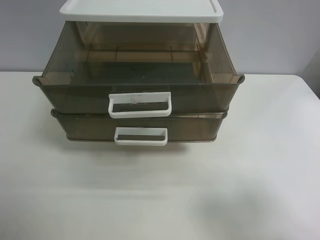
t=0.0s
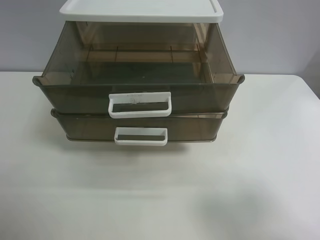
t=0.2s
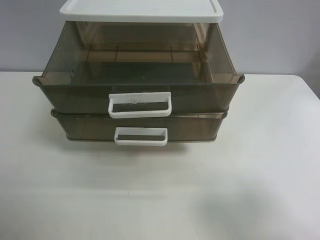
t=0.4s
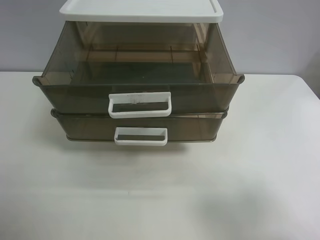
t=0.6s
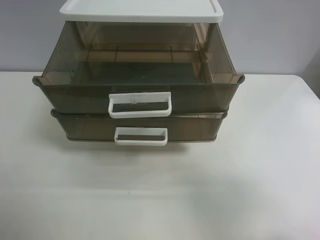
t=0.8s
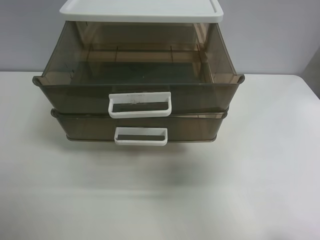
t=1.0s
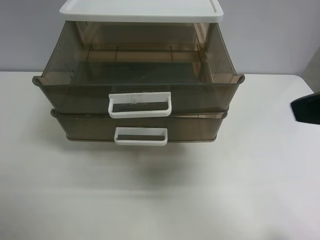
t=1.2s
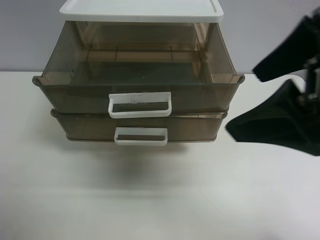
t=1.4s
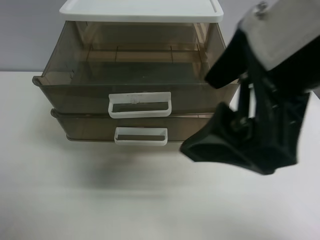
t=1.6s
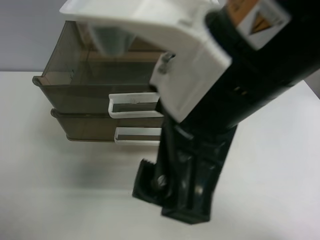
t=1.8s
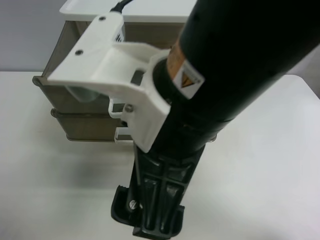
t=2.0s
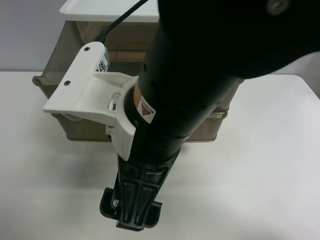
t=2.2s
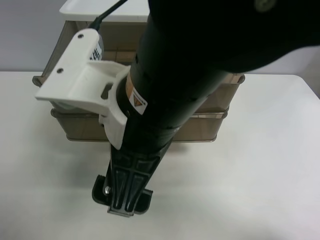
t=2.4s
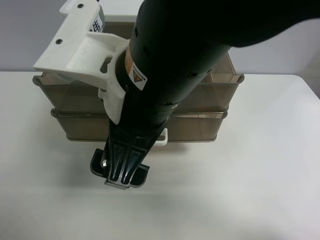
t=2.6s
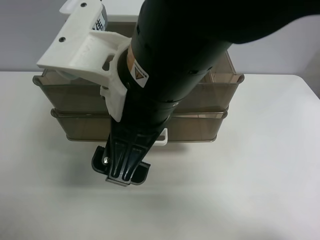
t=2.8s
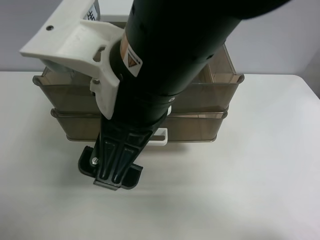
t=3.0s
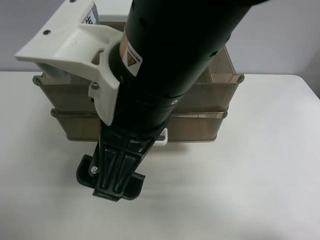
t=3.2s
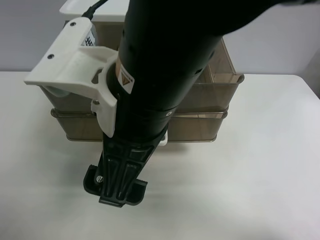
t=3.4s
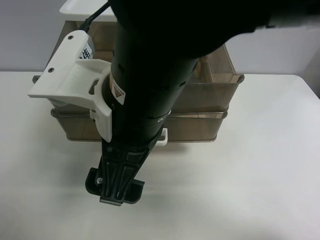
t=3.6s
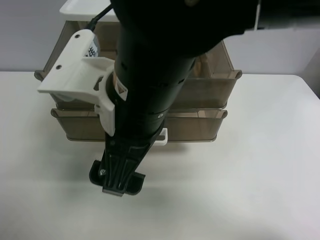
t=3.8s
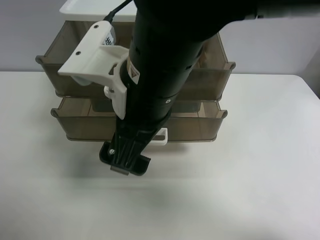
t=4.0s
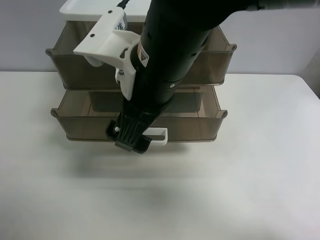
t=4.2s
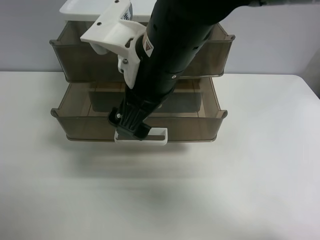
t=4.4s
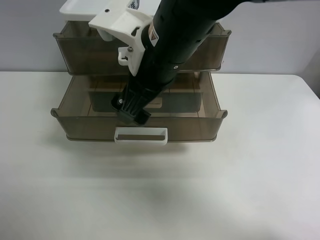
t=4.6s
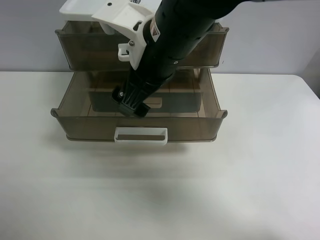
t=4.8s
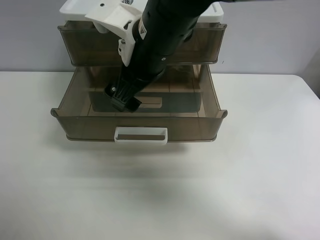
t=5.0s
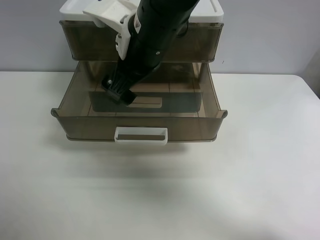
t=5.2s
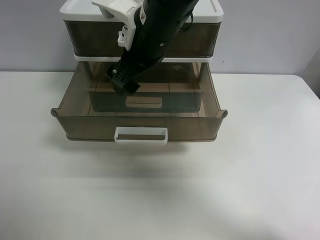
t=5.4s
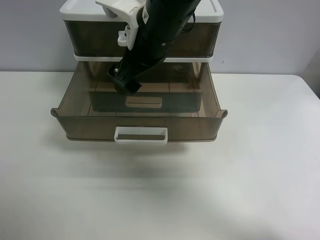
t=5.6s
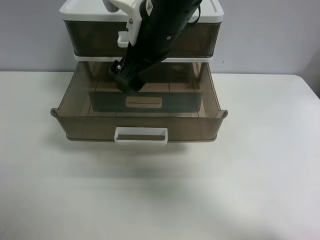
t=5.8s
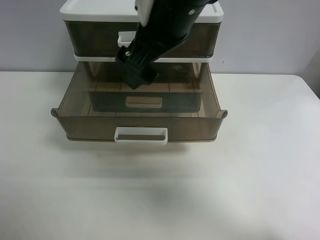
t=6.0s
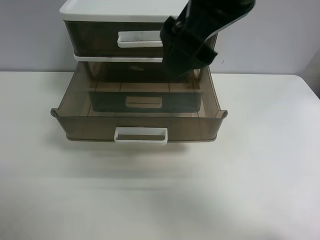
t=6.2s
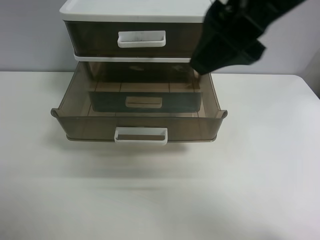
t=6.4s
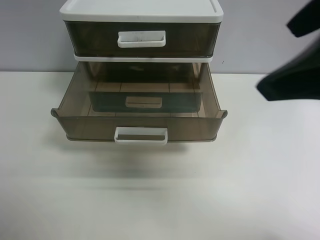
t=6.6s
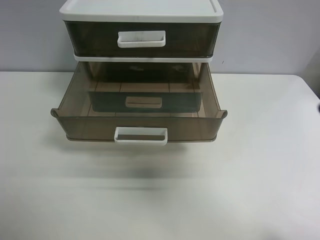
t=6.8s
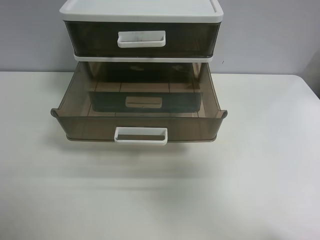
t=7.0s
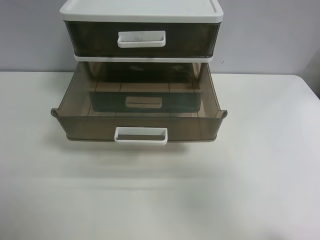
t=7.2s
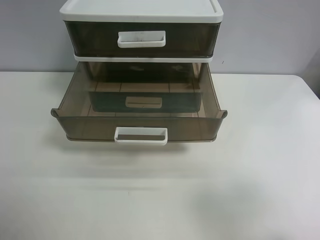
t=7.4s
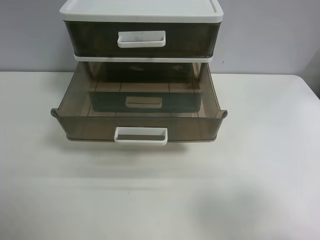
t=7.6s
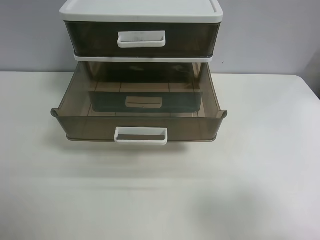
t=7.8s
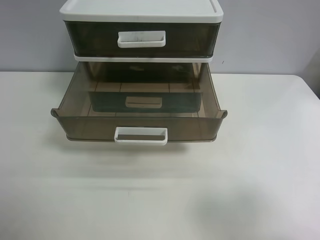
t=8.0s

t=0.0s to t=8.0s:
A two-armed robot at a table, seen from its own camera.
Task of the whole recording: close the top drawer.
Step, t=0.0s to t=3.6s: Use the right gripper to touch the topmost layer of the storage cabinet.
Step, t=3.8s to t=5.6s: Push the top drawer closed.
t=0.0s to t=1.6s: The right gripper goes about 25 cm to the left, forward and upward.
t=1.6s to t=3.2s: The right gripper travels to the left by approximately 10 cm.
t=3.2s to t=4.8s: The right gripper moves forward, about 10 cm.
t=4.8s to t=6.4s: The right gripper is displaced upward, to the right and backward by roughly 20 cm.
t=6.4s to t=8.0s: The right gripper shifts about 25 cm to the right, backward and downward.
